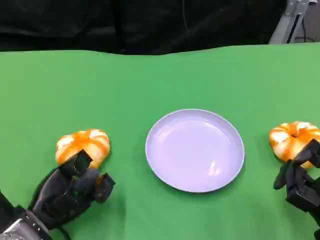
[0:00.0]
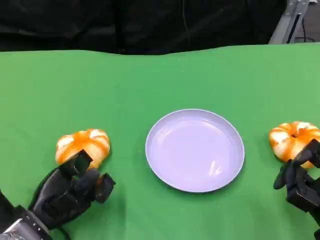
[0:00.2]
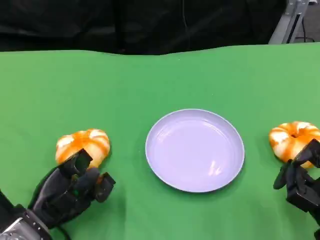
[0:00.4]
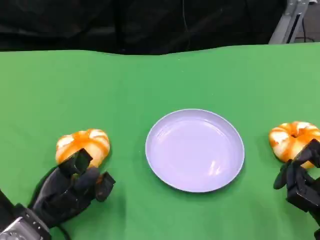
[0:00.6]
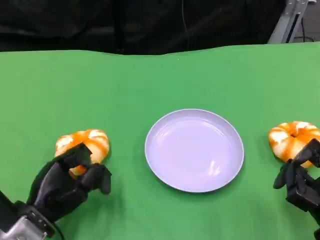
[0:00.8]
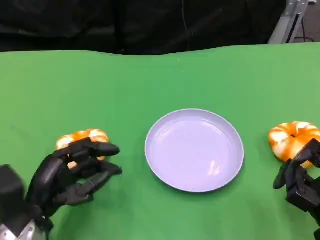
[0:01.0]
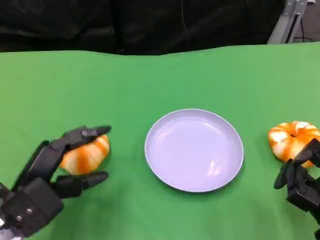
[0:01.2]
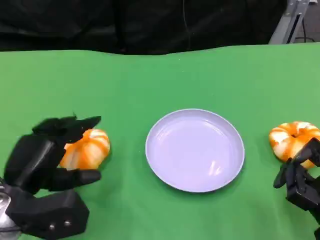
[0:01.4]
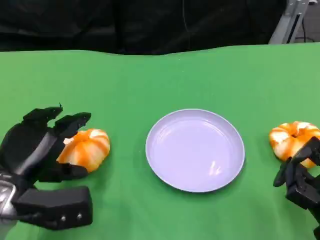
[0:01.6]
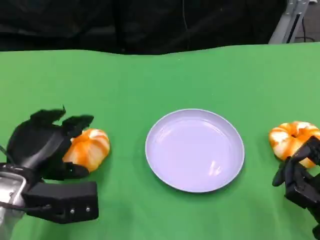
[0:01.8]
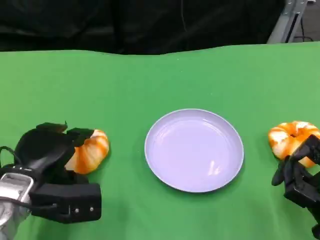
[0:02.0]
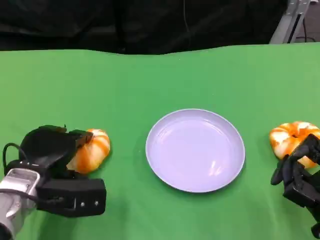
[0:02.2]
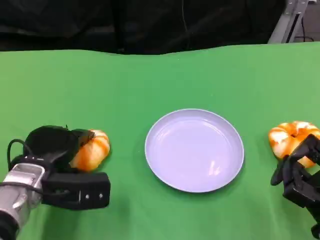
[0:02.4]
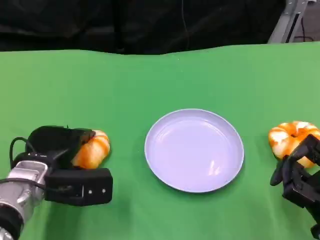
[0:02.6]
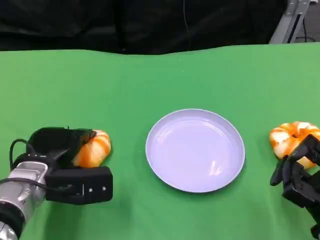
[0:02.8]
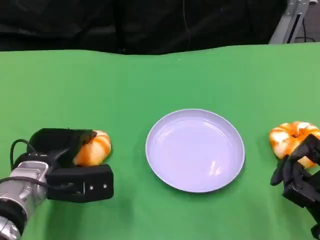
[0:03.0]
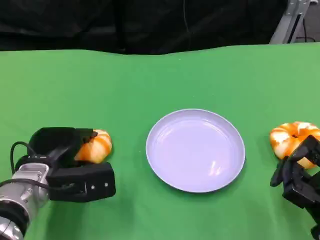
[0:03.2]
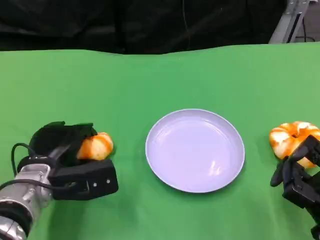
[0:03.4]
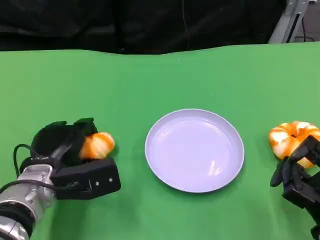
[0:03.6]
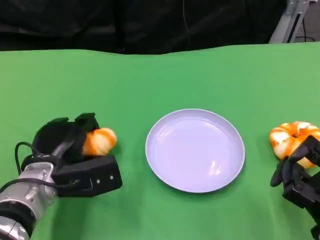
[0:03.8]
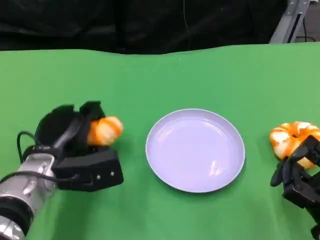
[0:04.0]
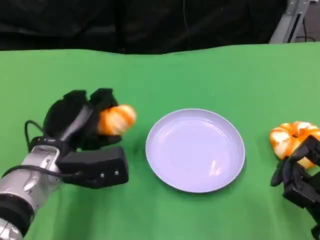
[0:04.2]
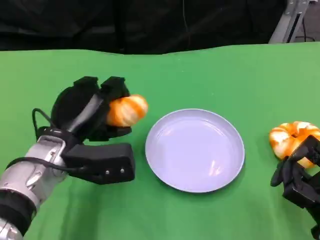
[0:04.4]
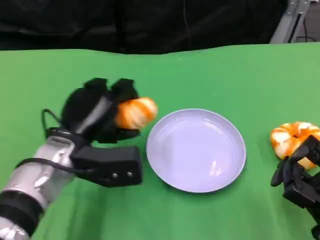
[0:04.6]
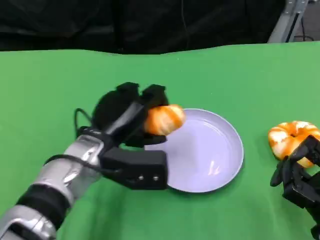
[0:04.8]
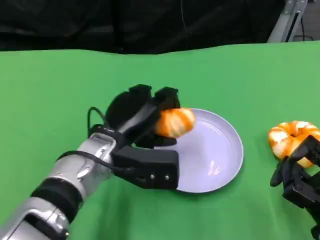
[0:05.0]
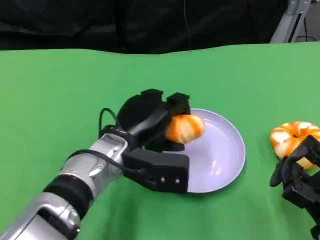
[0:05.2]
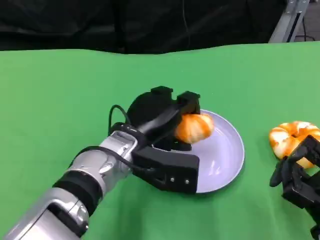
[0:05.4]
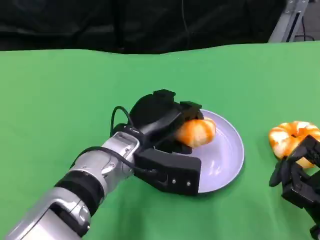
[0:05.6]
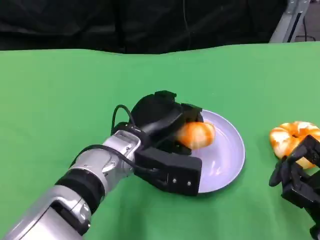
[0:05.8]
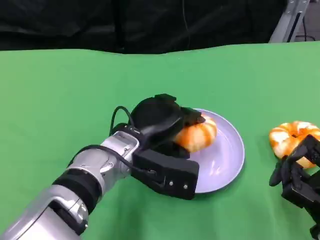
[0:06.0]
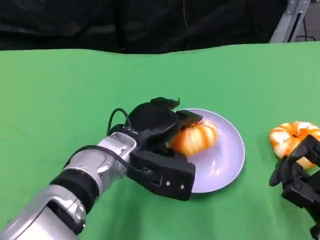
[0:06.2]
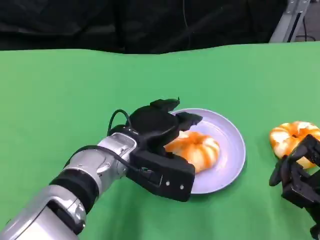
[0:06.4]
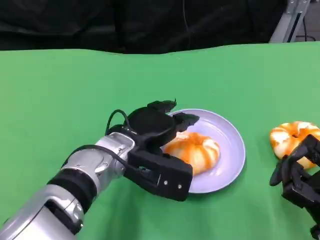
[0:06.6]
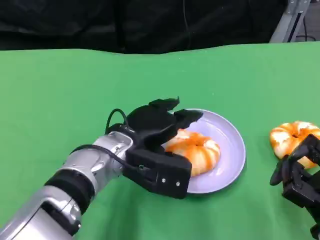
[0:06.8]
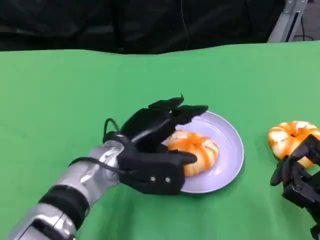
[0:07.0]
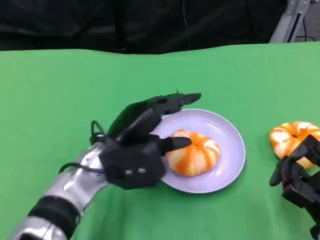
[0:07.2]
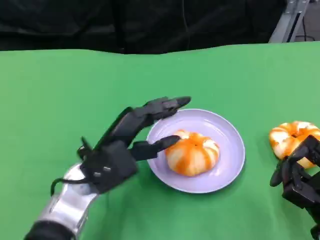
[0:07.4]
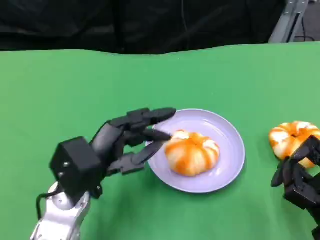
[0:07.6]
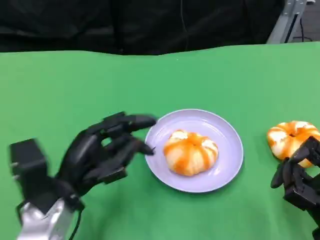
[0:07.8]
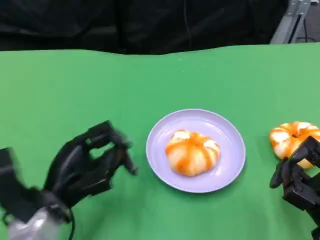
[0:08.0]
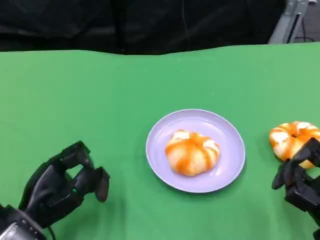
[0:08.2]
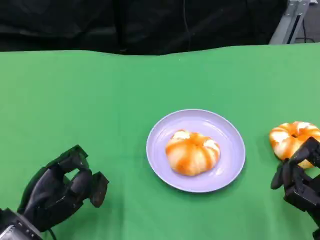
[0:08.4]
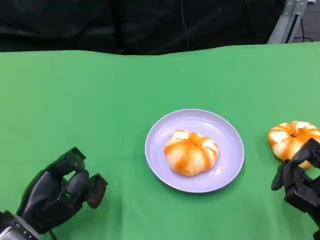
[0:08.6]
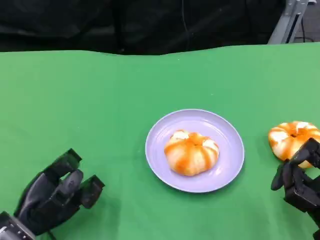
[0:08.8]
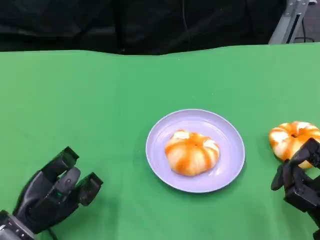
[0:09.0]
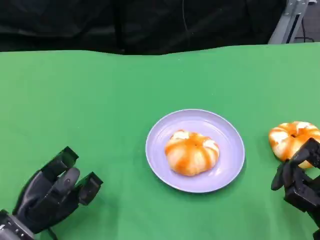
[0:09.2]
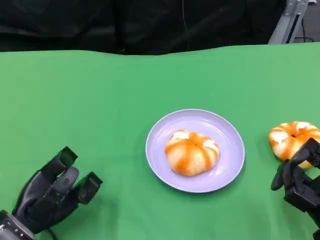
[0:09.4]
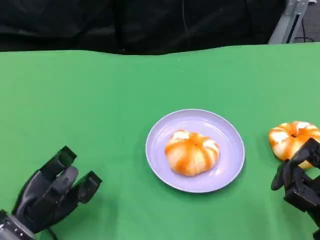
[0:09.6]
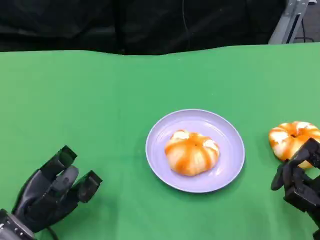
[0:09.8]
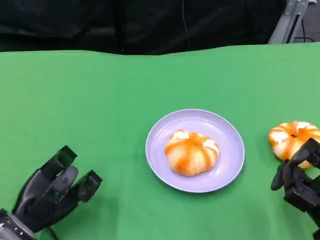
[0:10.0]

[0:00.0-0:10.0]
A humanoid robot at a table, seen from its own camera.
Task of the whole recording: Grasp the bread from the table and place it into the plate.
0:00.0 to 0:01.4: The left hand moves upward, roughly 5 cm.
0:01.4 to 0:02.8: The left hand moves forward, some 5 cm.
0:04.2 to 0:05.8: The left hand goes some 10 cm to the right.
0:07.2 to 0:08.6: The left hand is displaced to the left, downward and backward by roughly 15 cm.
0:08.6 to 0:10.0: The hands make only small movements.

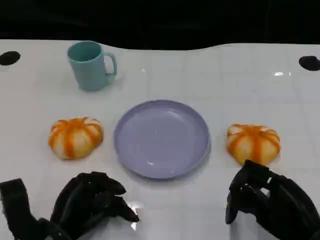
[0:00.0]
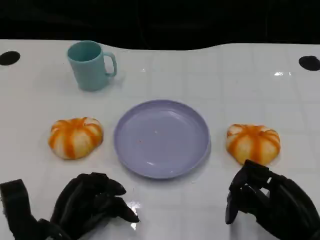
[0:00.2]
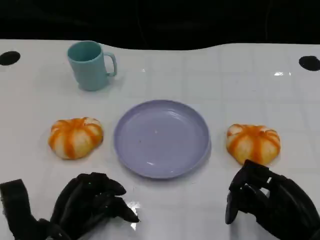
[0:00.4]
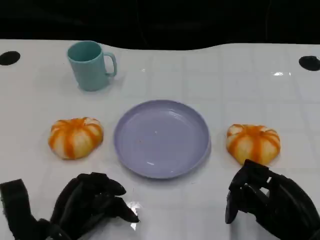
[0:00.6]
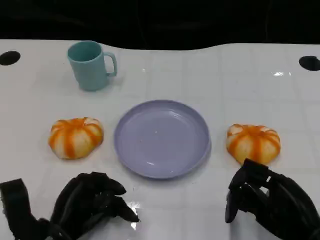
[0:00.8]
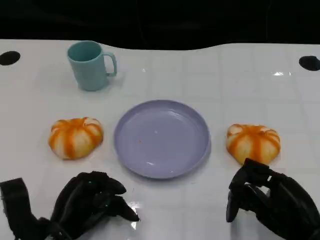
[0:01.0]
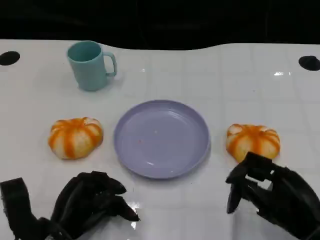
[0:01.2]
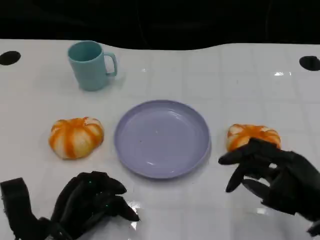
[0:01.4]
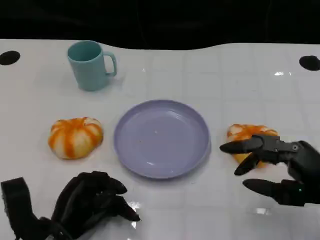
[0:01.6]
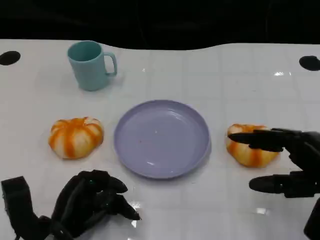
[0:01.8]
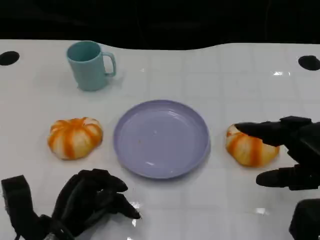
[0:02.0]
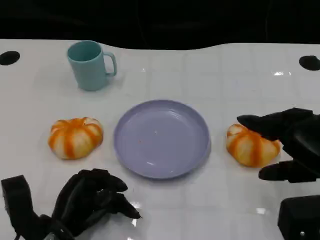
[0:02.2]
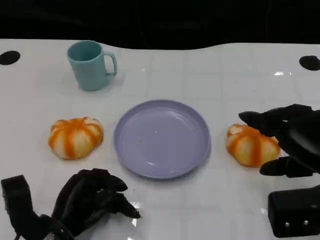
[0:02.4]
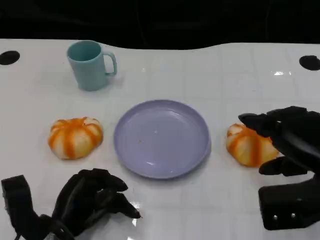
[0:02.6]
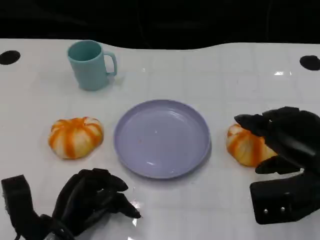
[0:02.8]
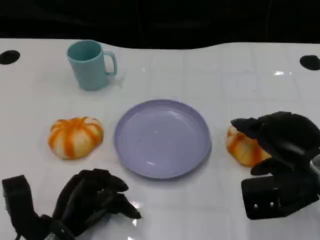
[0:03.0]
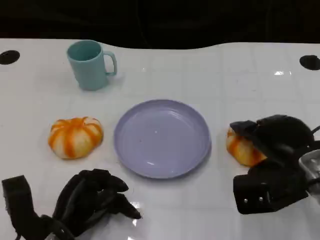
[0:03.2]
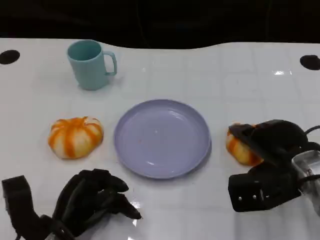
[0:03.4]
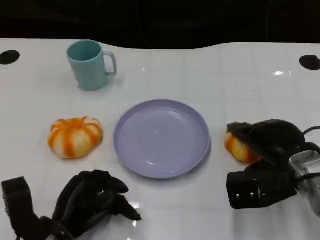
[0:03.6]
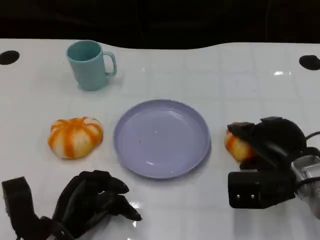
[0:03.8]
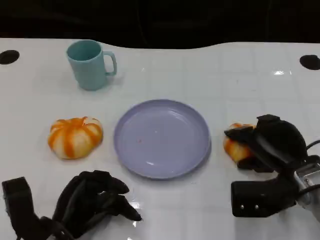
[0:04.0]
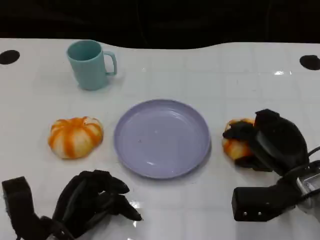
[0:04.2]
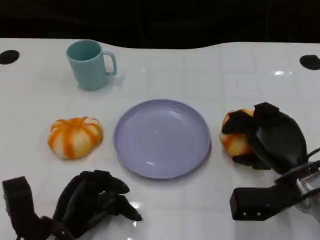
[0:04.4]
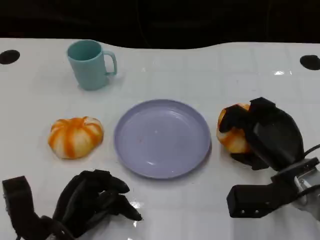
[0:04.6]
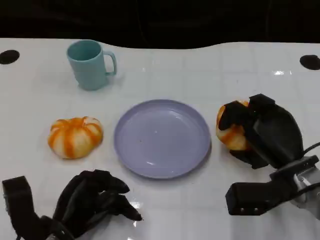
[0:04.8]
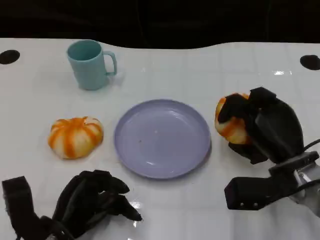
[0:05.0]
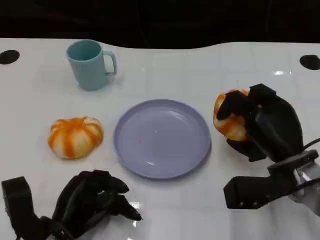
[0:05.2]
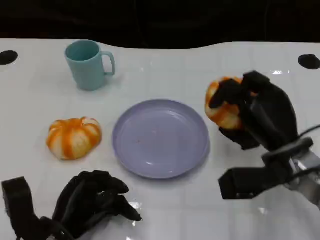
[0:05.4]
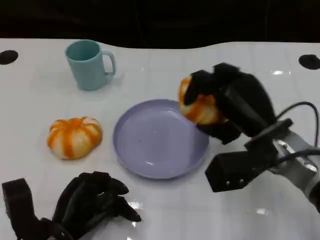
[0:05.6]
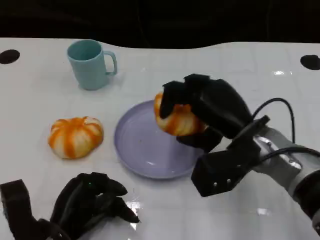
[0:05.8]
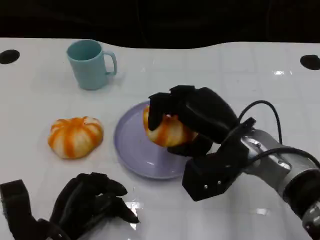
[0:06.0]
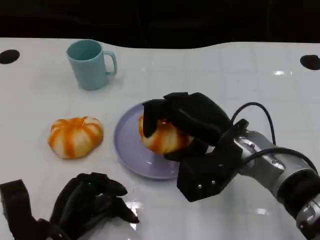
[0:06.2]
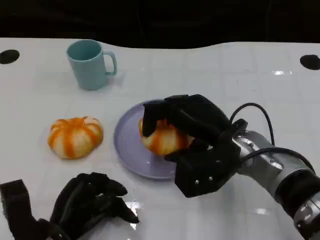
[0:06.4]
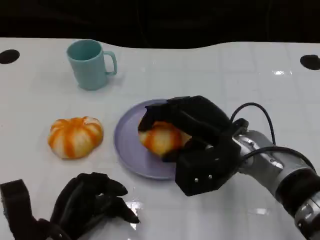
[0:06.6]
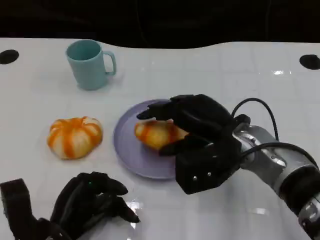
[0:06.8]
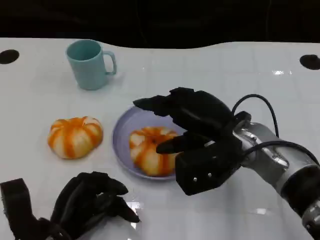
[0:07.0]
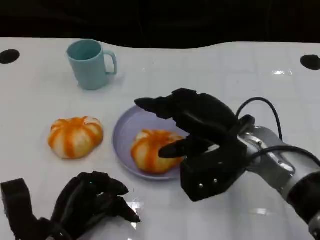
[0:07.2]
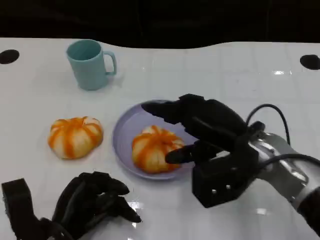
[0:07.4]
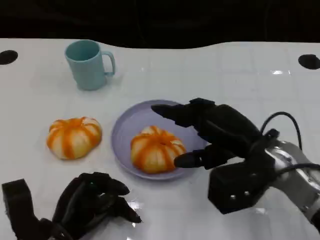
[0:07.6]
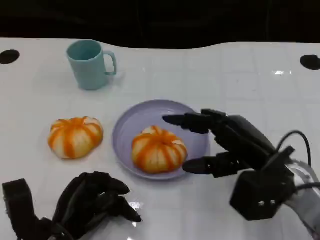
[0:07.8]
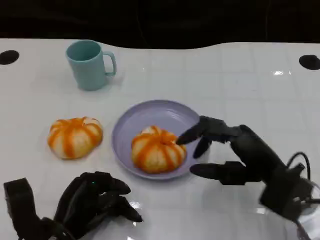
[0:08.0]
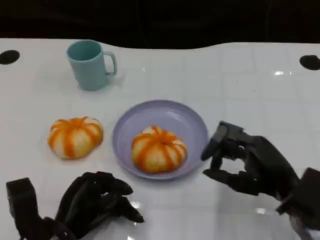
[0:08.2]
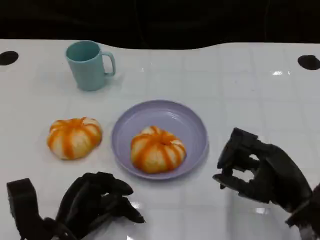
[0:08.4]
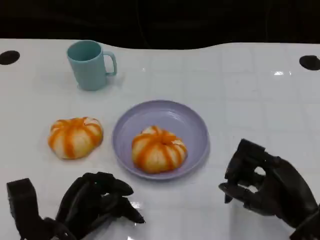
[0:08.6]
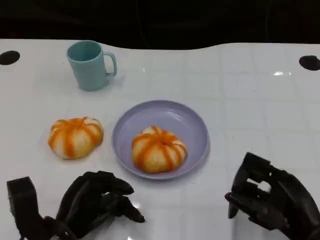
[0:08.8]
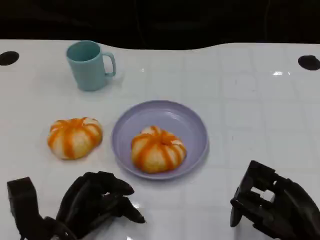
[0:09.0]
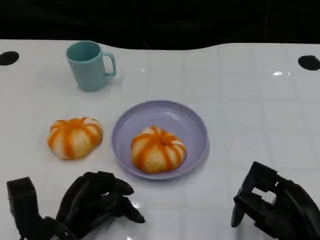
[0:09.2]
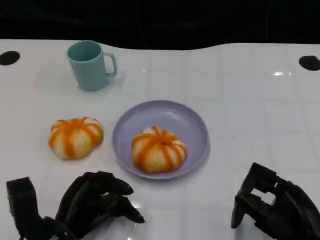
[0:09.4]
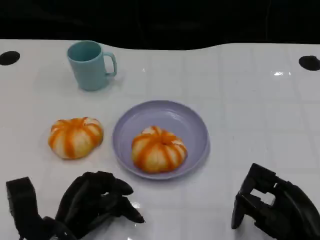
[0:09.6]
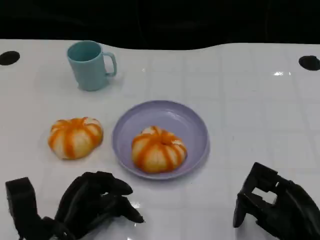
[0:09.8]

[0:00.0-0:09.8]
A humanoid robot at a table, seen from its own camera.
Task of the whole recording: Grasp the bread from the table and place it into the plate.
0:01.4 to 0:02.8: The right hand shifts about 5 cm forward.
0:02.8 to 0:04.2: The right hand travels downward by approximately 5 cm.
0:04.2 to 0:05.6: The right hand goes roughly 10 cm upward and to the left.
0:07.0 to 0:08.4: The right hand goes some 15 cm to the right, backward and downward.
